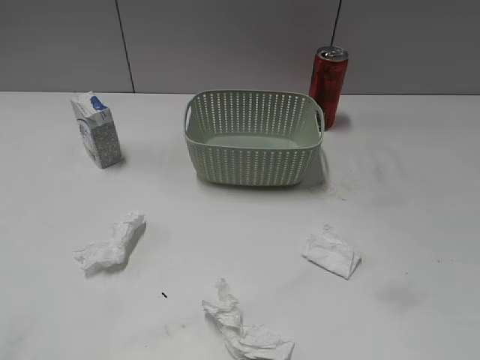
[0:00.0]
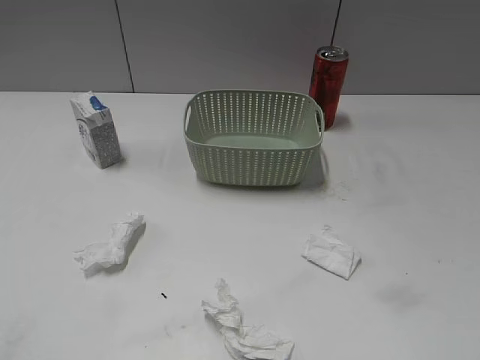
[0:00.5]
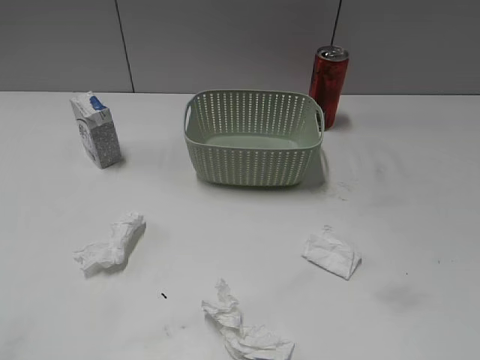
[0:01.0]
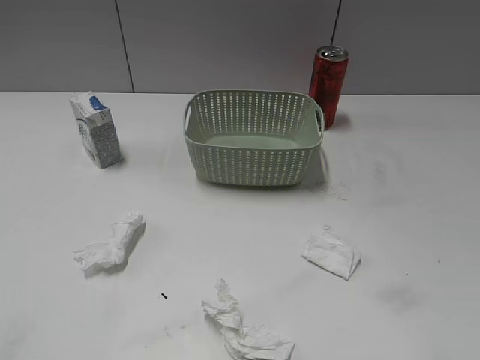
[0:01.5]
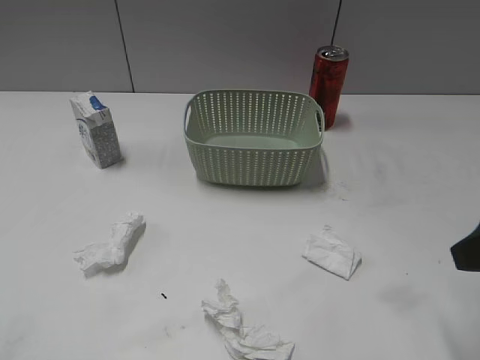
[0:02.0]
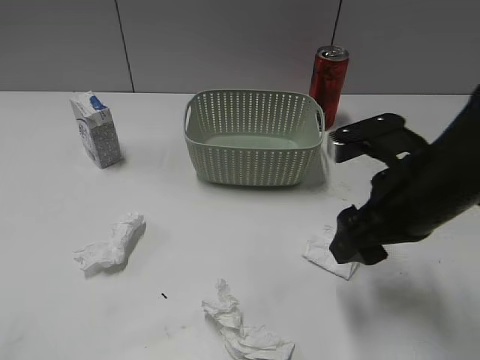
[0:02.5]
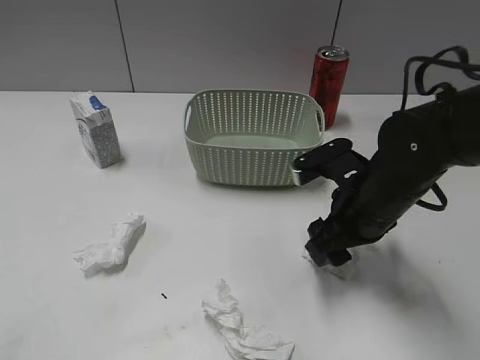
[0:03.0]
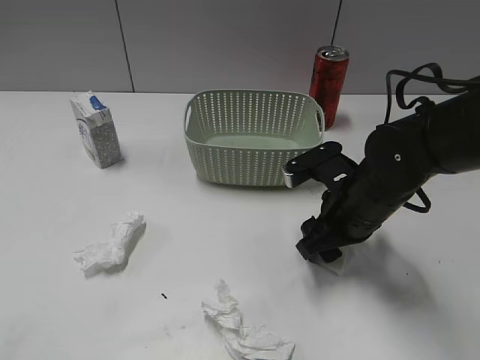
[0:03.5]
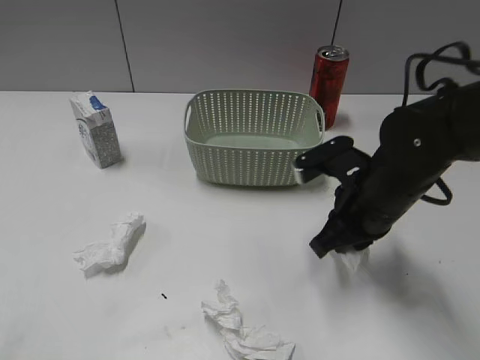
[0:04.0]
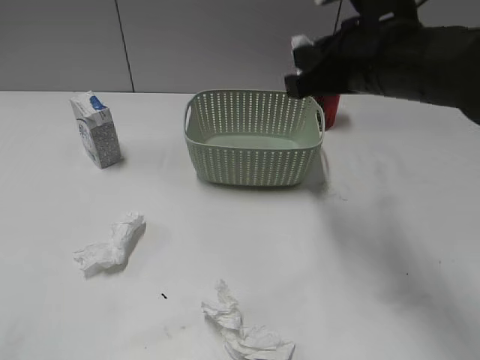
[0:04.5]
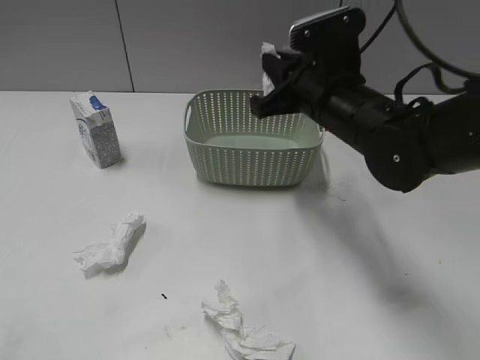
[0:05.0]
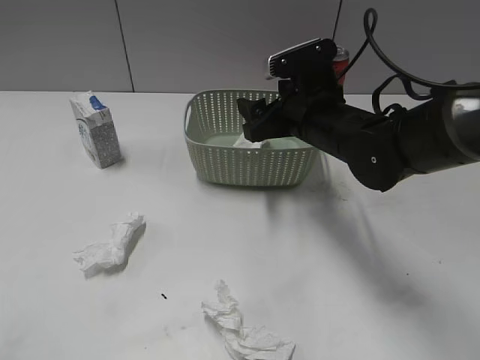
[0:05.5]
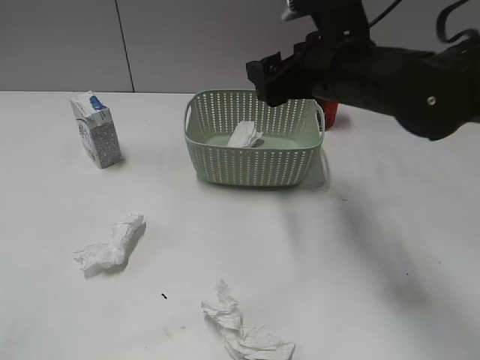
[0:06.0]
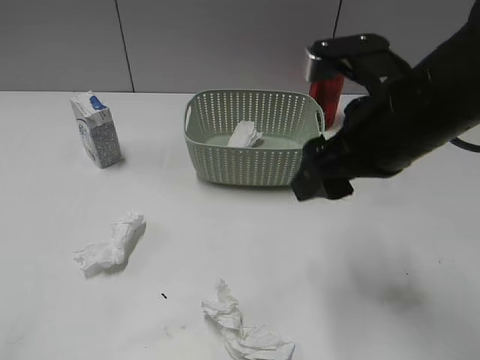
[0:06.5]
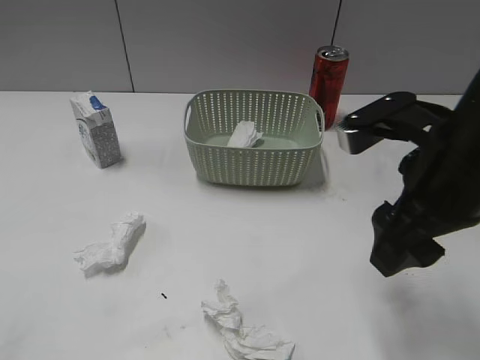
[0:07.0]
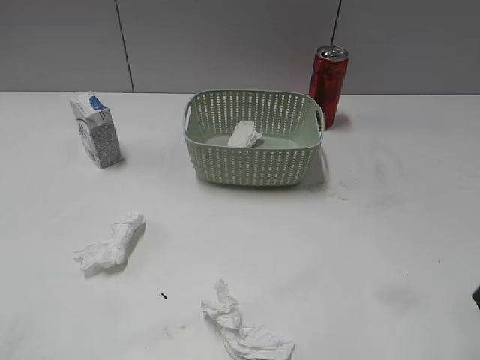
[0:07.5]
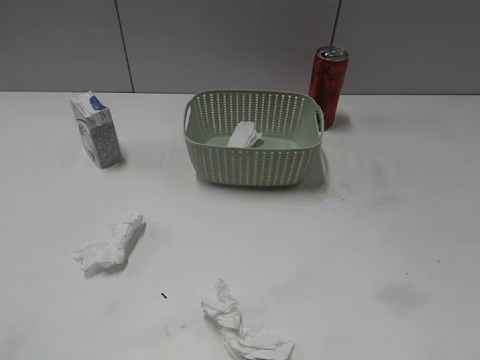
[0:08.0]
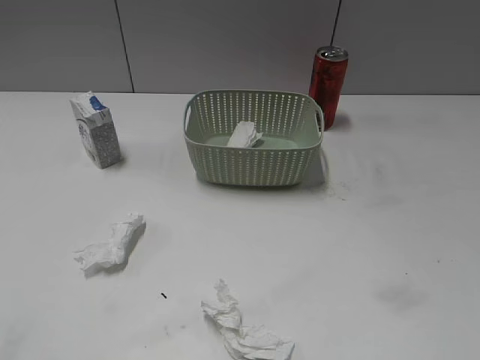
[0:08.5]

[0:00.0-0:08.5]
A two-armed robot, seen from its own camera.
Step, 0:02.0 to 0:03.5: Grasp the waste paper with right gripper.
Step, 0:04.0 to 0:05.5: Place the waste paper in the basket with right gripper.
0:02.0 to 0:04.0: The right gripper moves to the left, downward and forward, some 20 cm, and closes its fingers. Meanwhile the left gripper opens.
0:04.0 to 0:06.5: The right gripper goes up and down, some 15 cm each way, reversing 2 times, and opens its fingers.
0:06.5 to 0:08.5: The right gripper shifts some 30 cm backward and to the right.

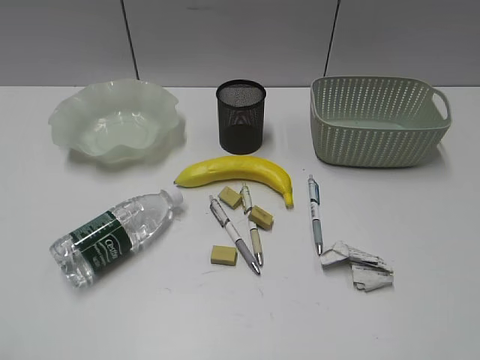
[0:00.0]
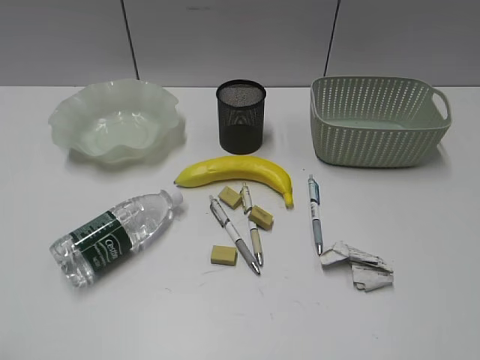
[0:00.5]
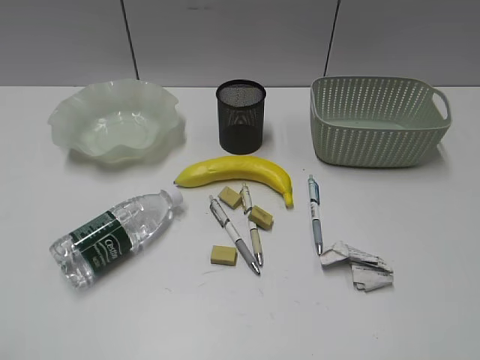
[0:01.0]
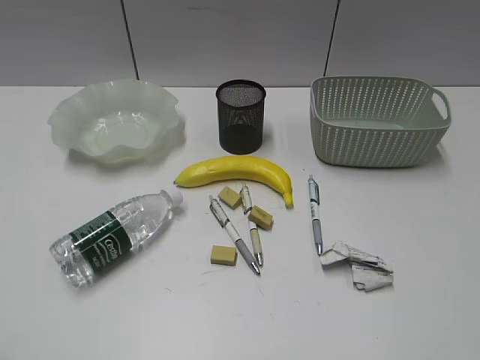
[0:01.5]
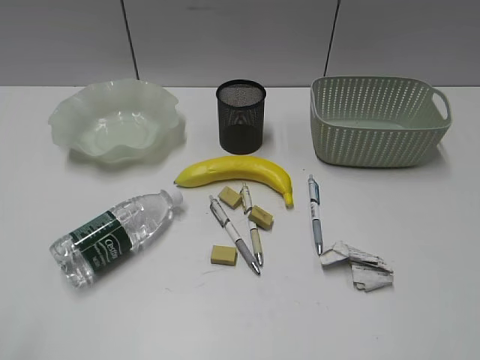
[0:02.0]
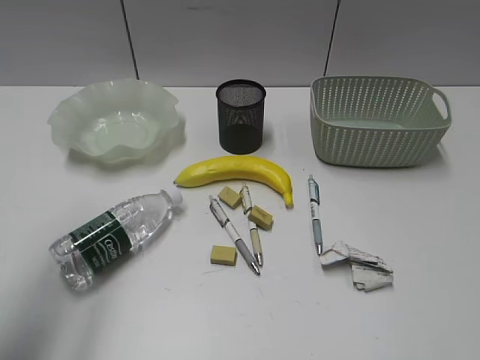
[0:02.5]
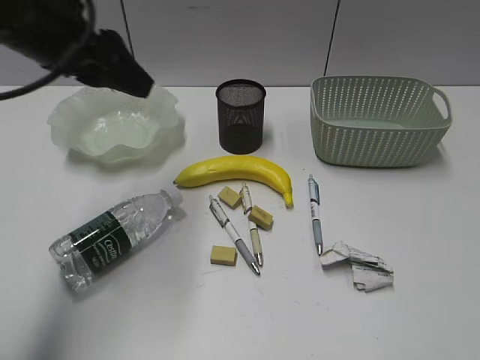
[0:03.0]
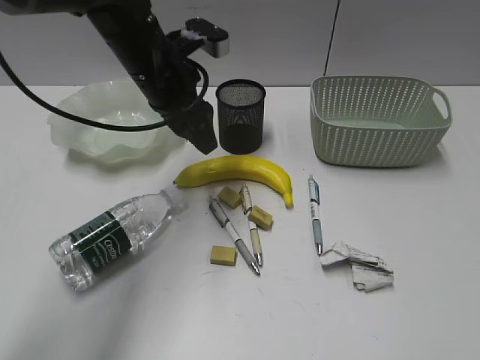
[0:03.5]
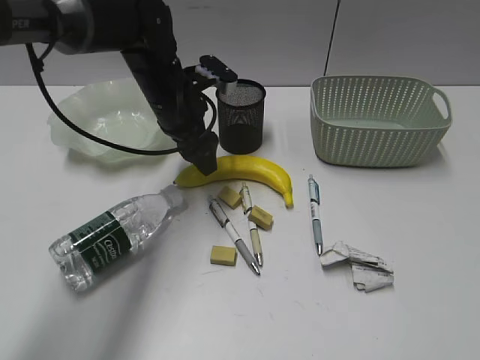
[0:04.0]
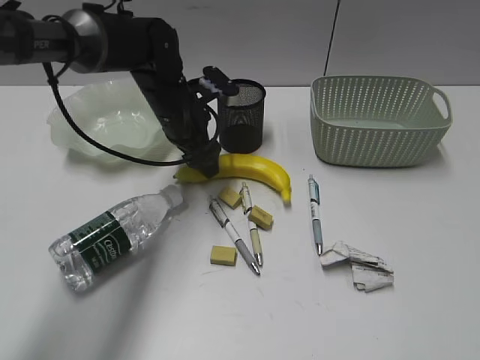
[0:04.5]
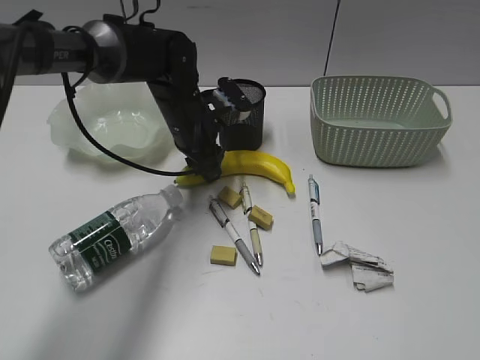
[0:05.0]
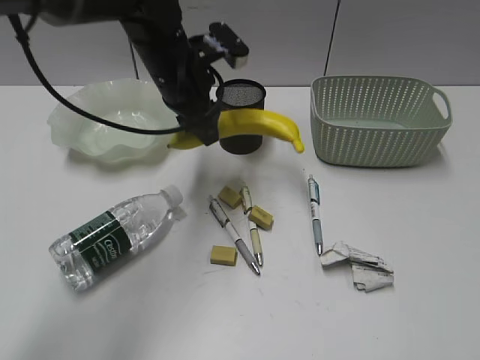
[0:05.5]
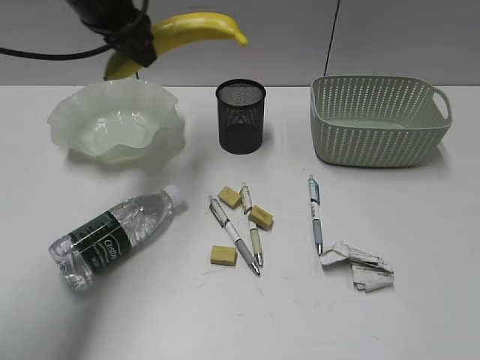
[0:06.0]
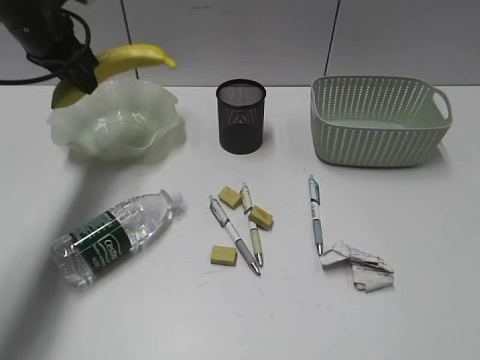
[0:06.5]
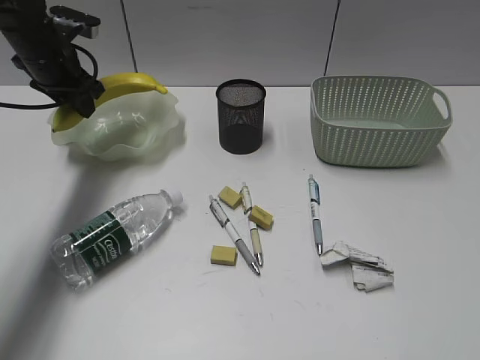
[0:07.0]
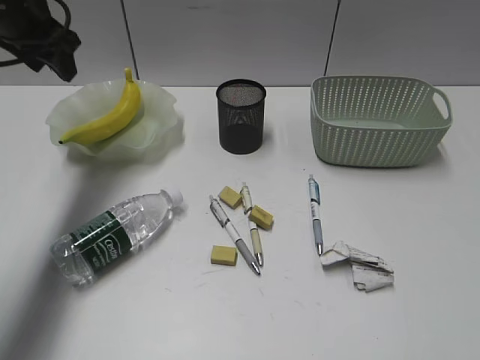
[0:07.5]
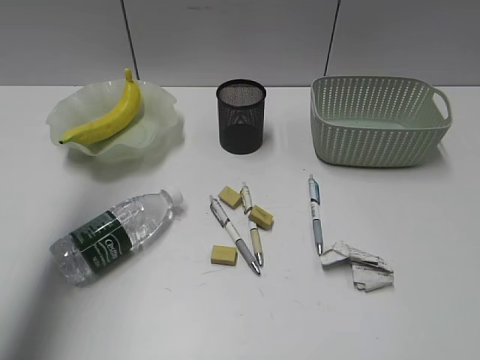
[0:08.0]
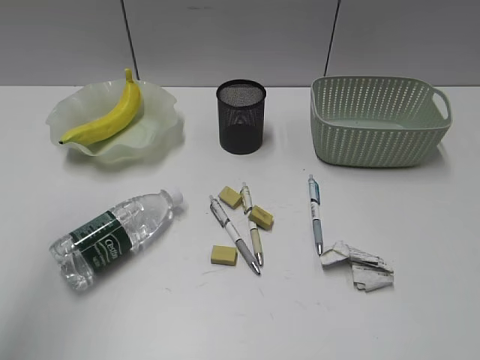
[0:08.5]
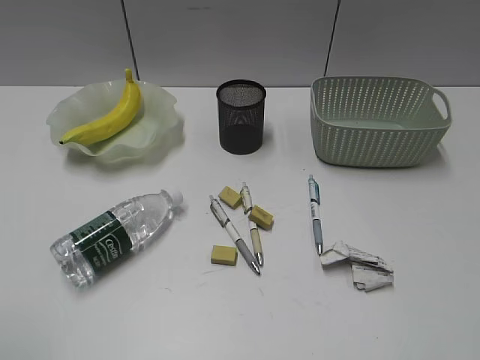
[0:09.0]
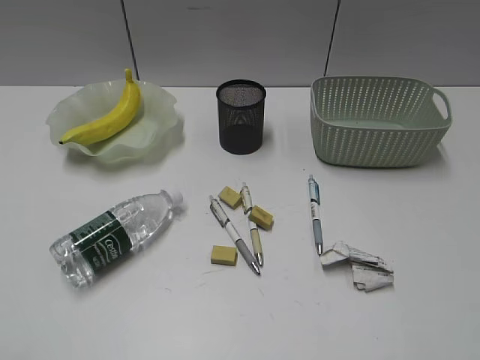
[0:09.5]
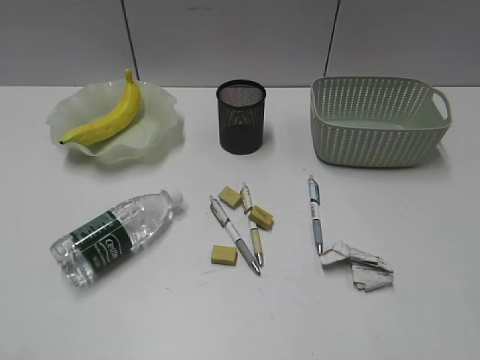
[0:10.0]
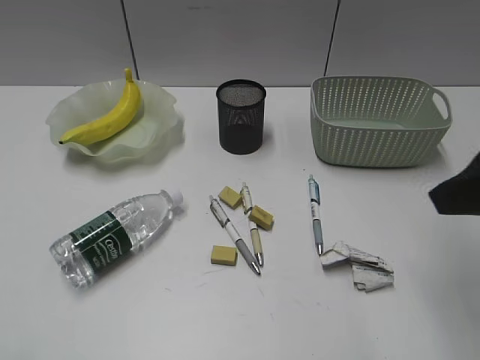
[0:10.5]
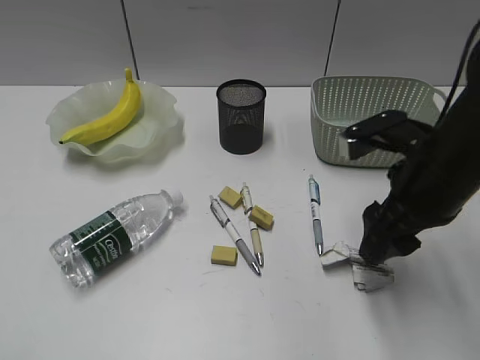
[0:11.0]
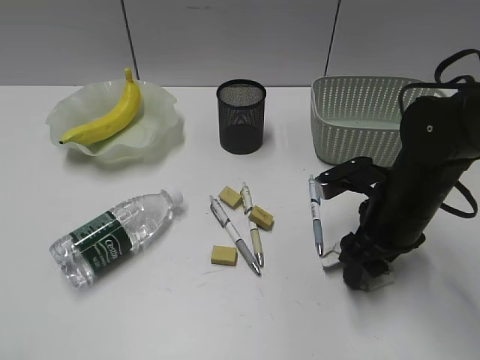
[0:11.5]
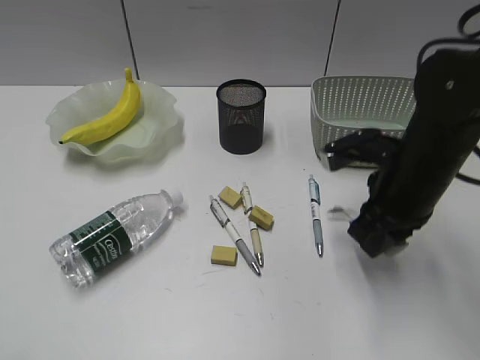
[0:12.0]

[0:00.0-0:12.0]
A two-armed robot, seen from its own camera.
Step, 0:02.0 to 0:05.0: Grasp the banana with left gripper.
Step, 0:05.5 to 0:07.0: Place the banana in the plate with left gripper.
Step, 0:07.5 to 0:11.5: Grasp the waste paper with right gripper.
0:02.0 to 0:04.0: The left gripper is displaced forward and to the right by roughly 50 cm, and opens up.
0:04.0 to 0:06.0: The left gripper shifts approximately 15 cm upward and to the left, and closes.
0:06.0 to 0:08.0: The left gripper goes some 20 cm upward, to the left and backward.
0:08.0 to 0:10.0: The left gripper is displaced backward and downward by approximately 40 cm.
0:10.0 to 0:12.0: The right gripper moves forward, downward and to the left, some 30 cm, and closes.

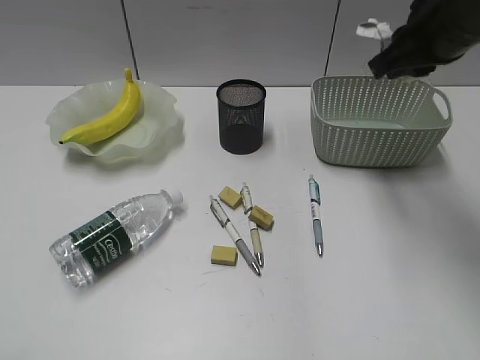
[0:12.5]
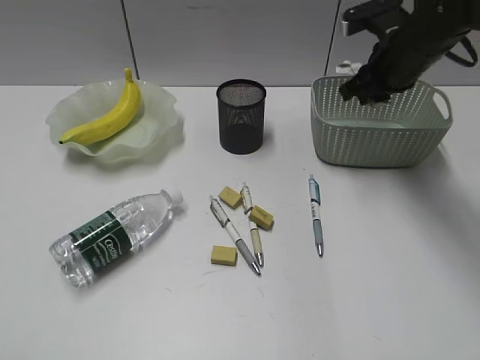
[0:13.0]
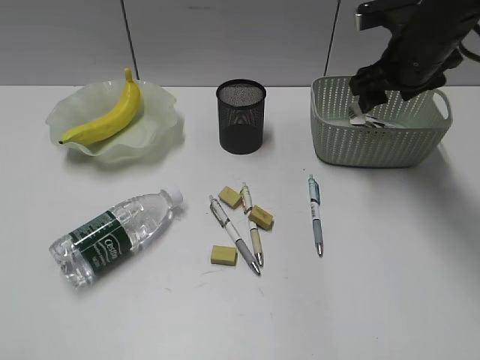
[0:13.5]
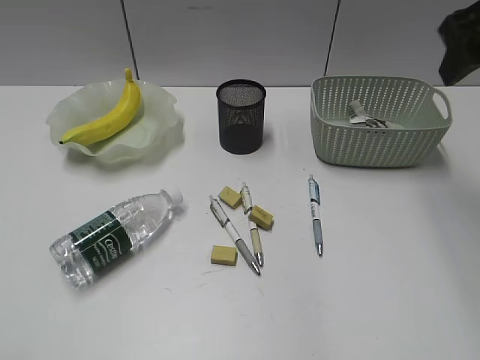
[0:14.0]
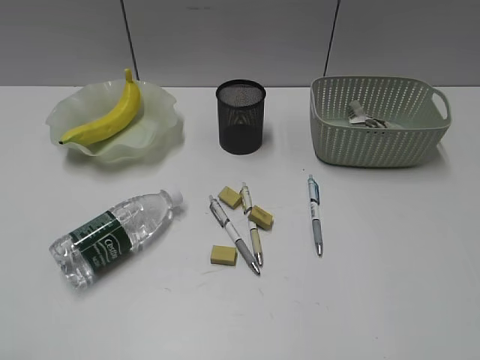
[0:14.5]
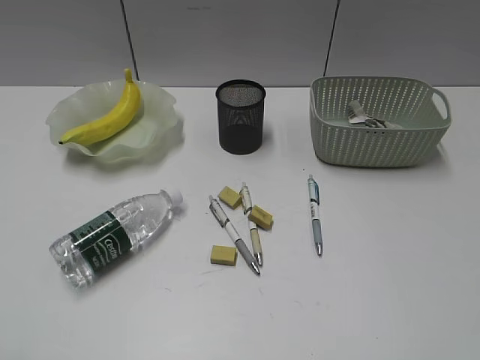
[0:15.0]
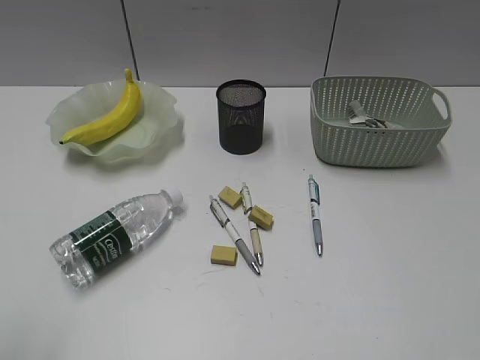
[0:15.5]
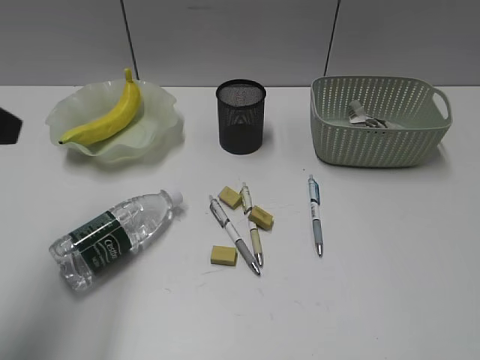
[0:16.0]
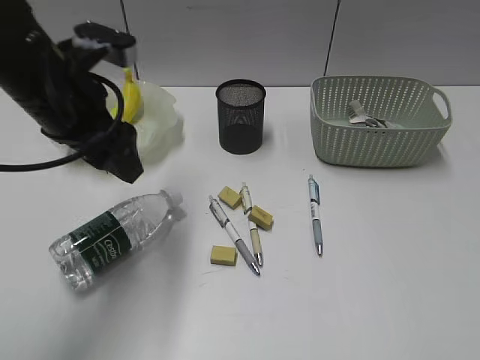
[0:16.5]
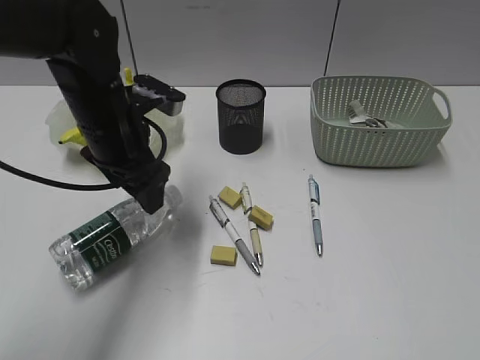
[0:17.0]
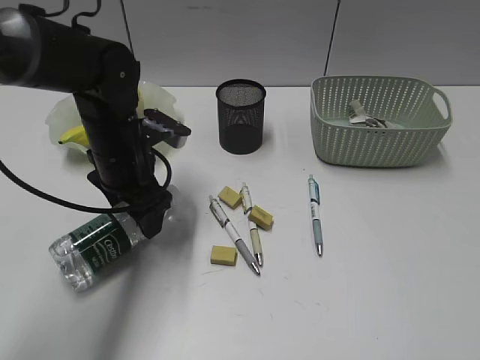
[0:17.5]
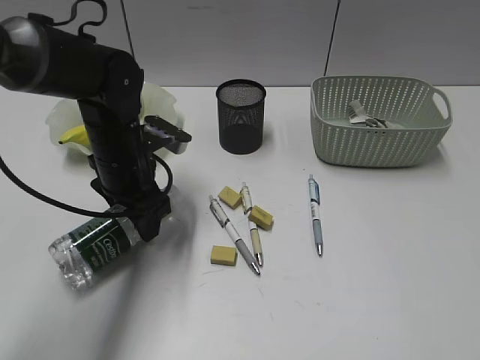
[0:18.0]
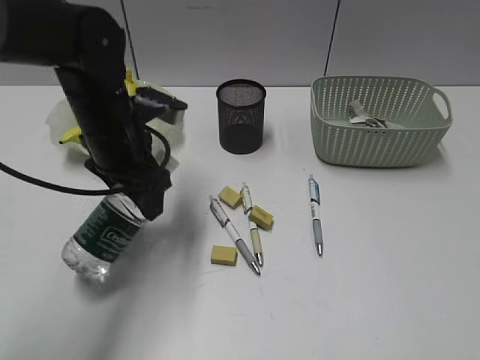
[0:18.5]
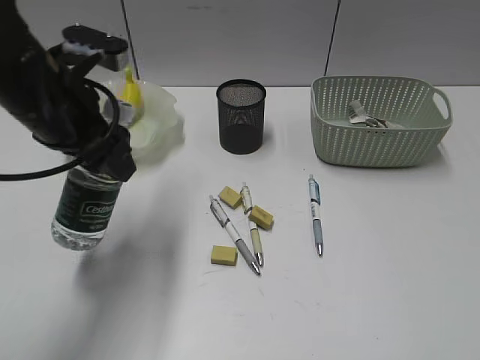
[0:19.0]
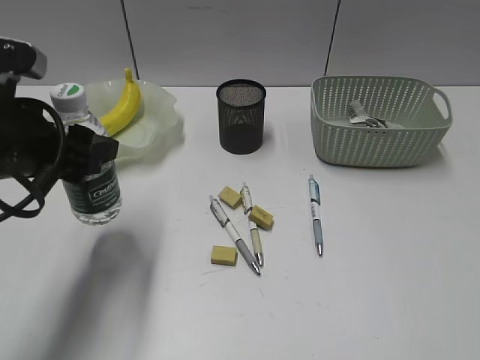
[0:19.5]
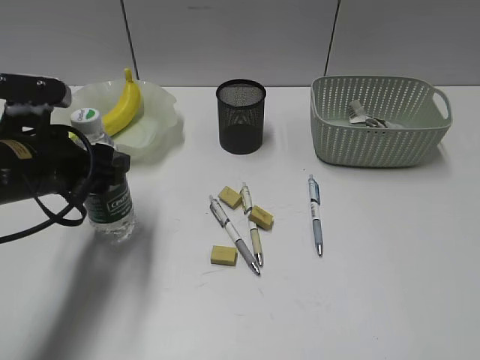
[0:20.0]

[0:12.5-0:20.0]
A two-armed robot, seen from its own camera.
Step, 0:13.5 to 0:18.0: Grasp the bottle with left gripper.
0:12.5 to 0:14.5: The right gripper heads backward, covering some 25 cm, and opens.
0:14.5 to 0:16.5: The left gripper heads forward and to the right, covering roughly 35 cm, and opens its fingers, while the right gripper travels backward and downward by roughly 15 cm.
0:16.5 to 0:18.0: The left gripper travels downward by some 10 cm.
0:18.0 to 0:20.0: The left gripper moves backward and to the left, approximately 10 cm.
